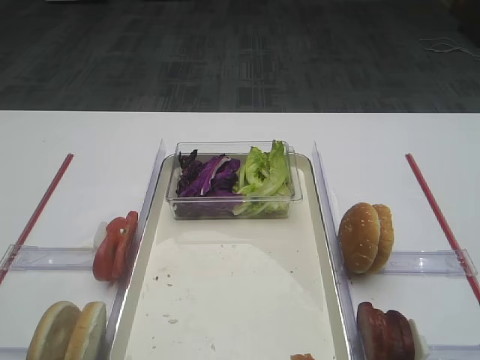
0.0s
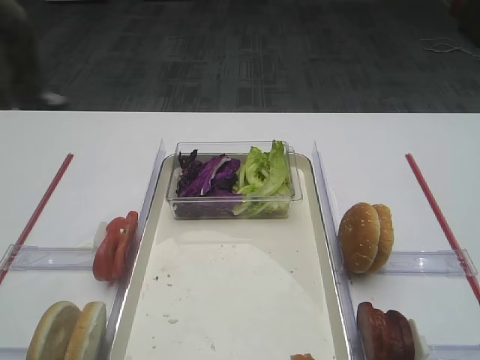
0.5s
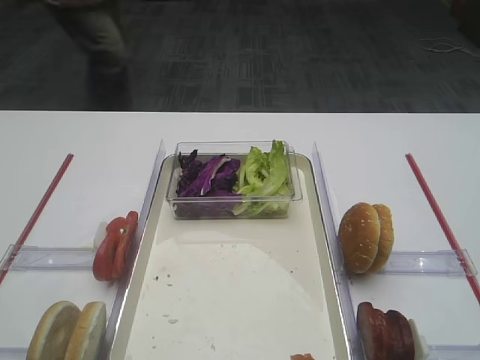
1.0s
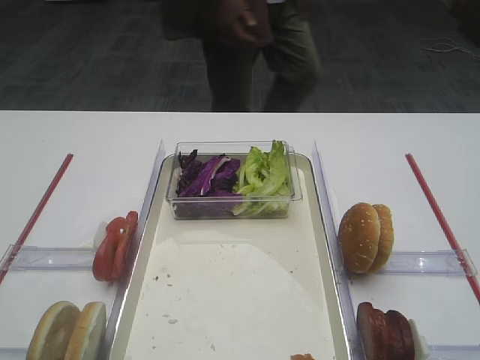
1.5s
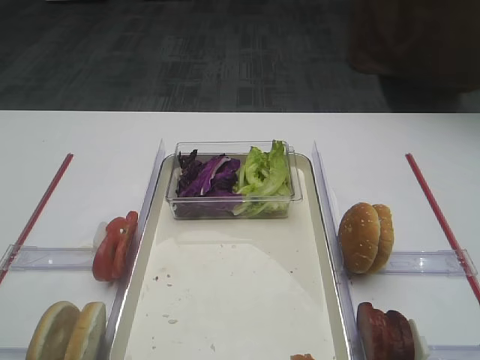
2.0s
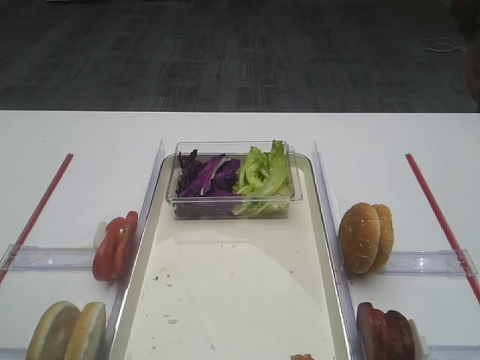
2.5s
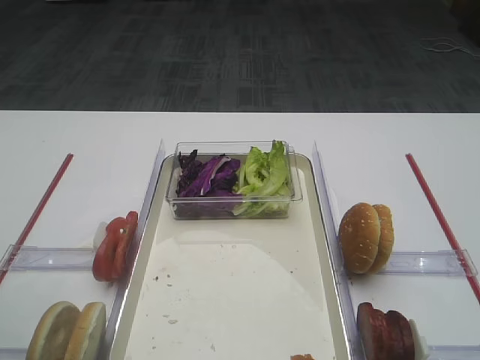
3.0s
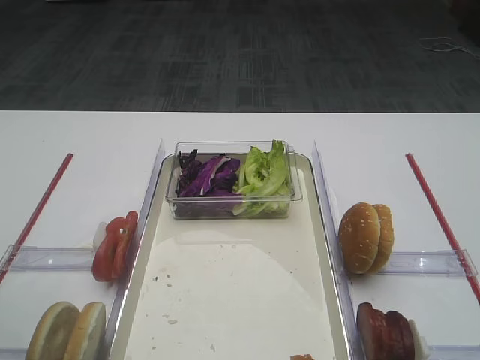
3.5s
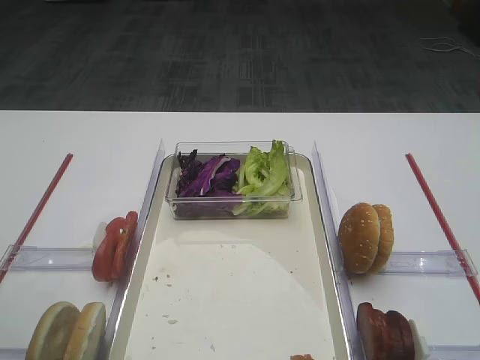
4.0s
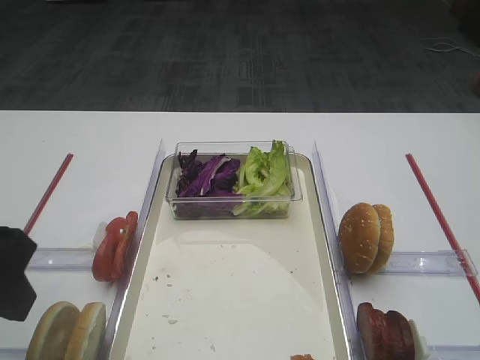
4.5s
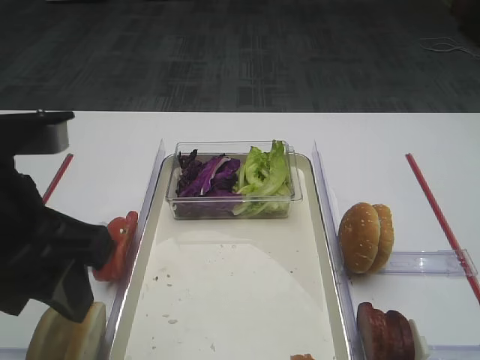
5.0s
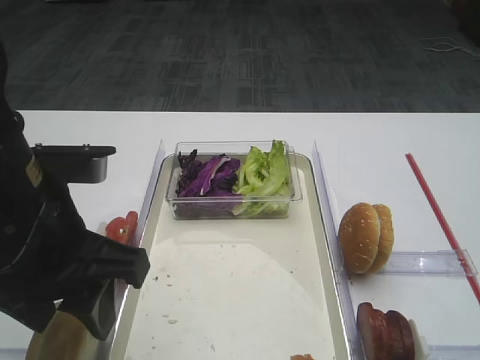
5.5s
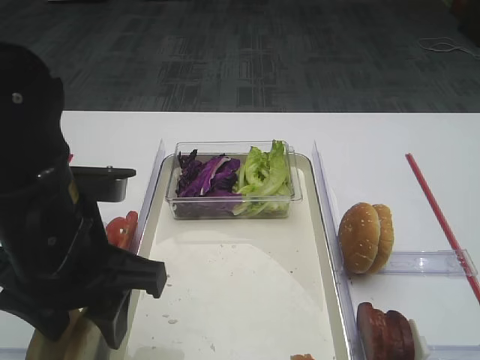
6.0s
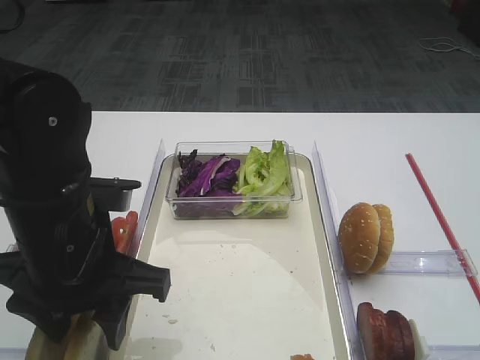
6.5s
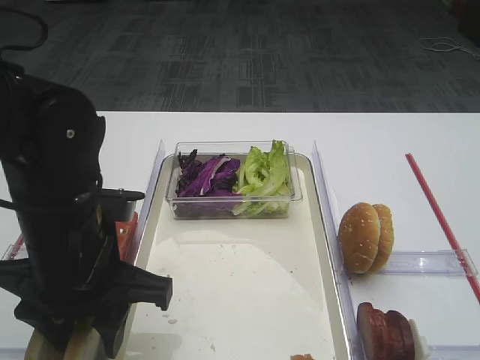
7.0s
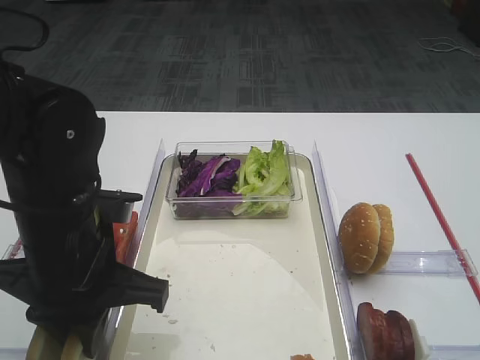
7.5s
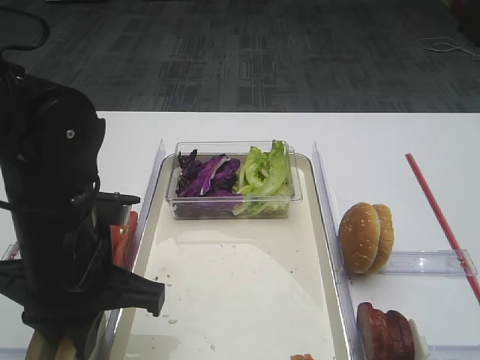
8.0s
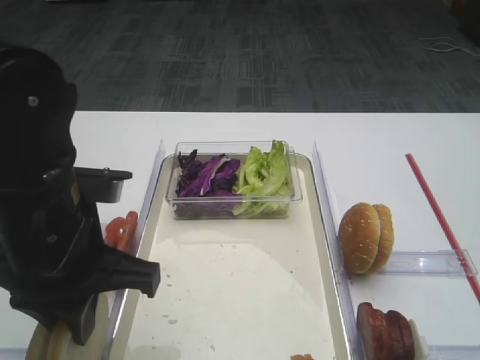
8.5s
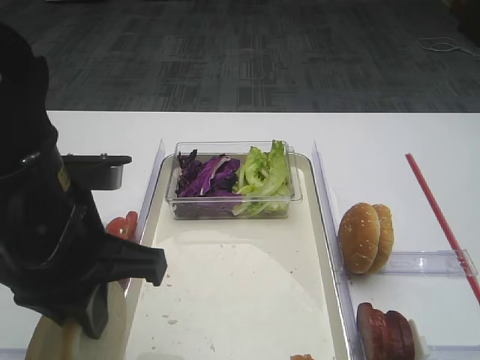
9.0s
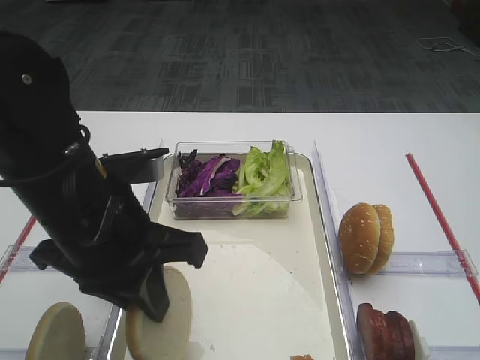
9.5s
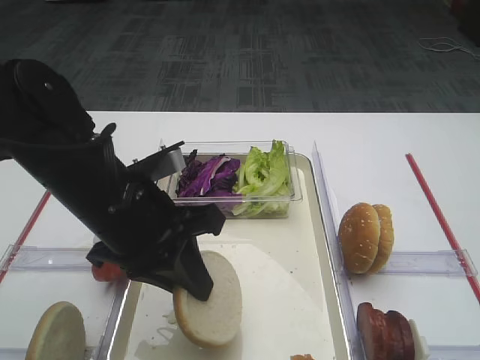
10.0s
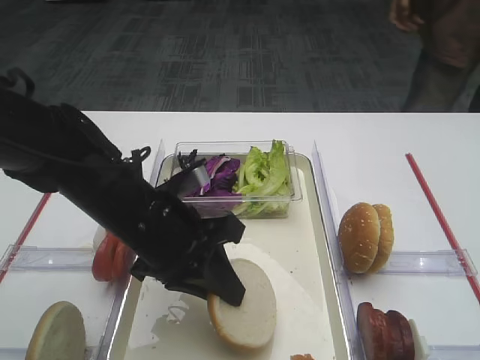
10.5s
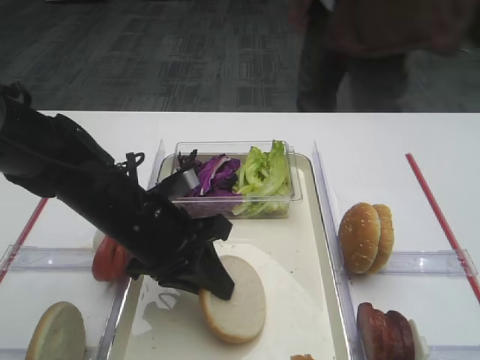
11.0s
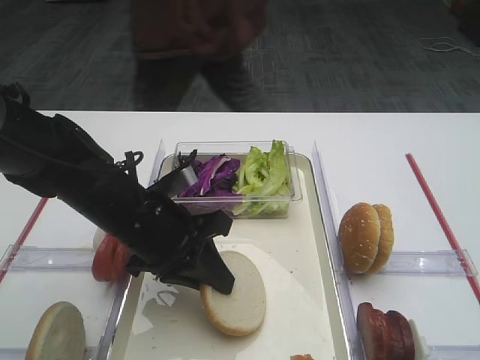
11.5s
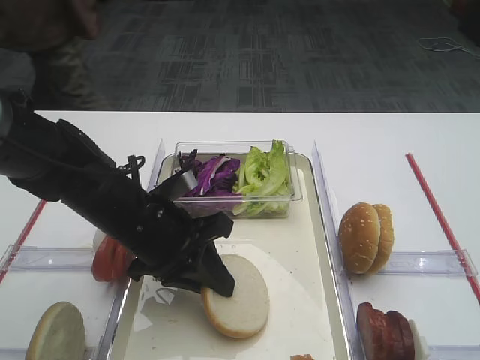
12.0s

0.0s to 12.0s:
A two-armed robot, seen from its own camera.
Step, 0.0s to 8.5s: Pick up the bread slice with the left gripper.
4.0s to 6.0s: The left gripper heads to the right, downward and forward, covering about 15 cm.
6.0s to 8.0s: The left gripper closes.
10.0s to 12.0s: The left gripper moves downward, roughly 5 cm.

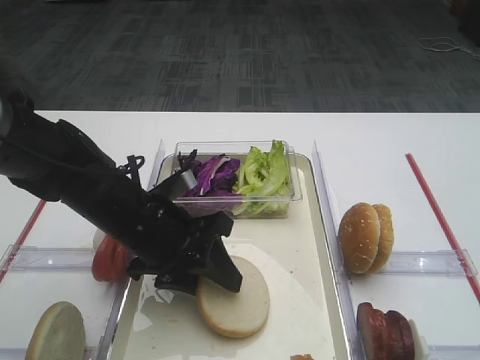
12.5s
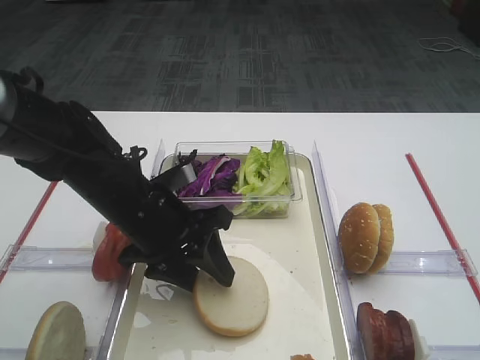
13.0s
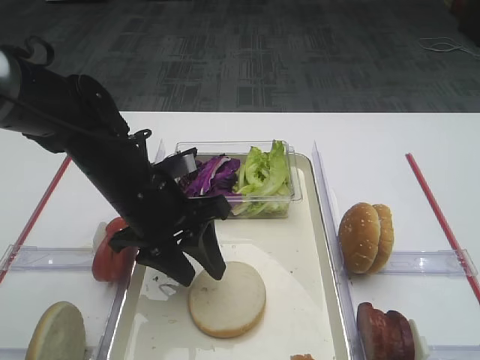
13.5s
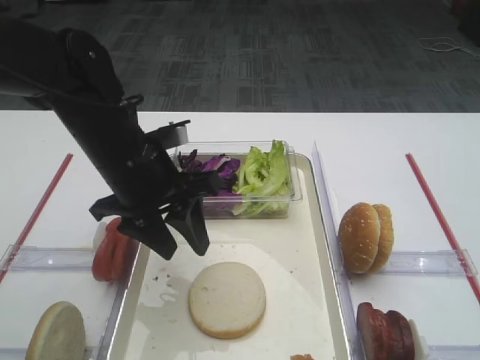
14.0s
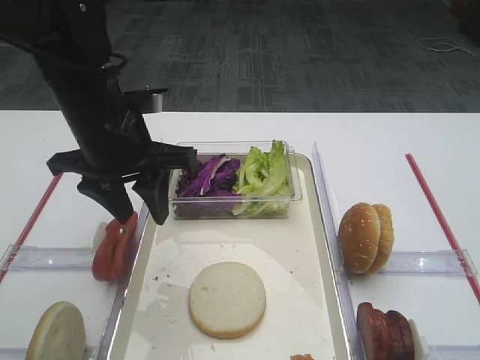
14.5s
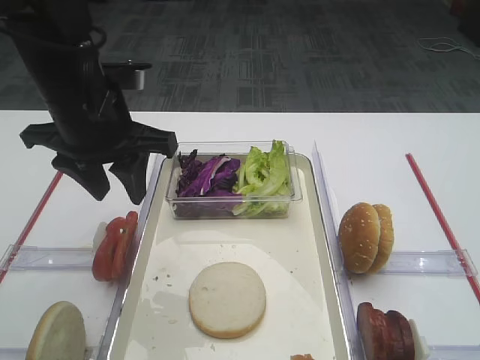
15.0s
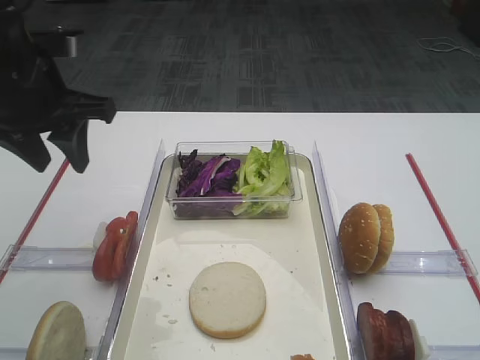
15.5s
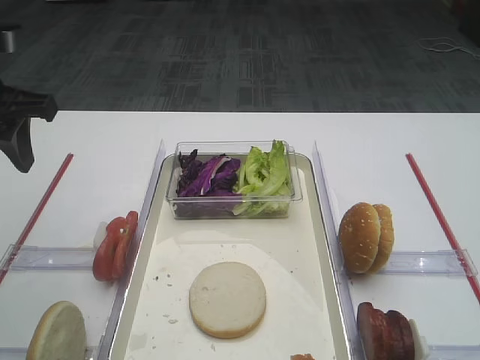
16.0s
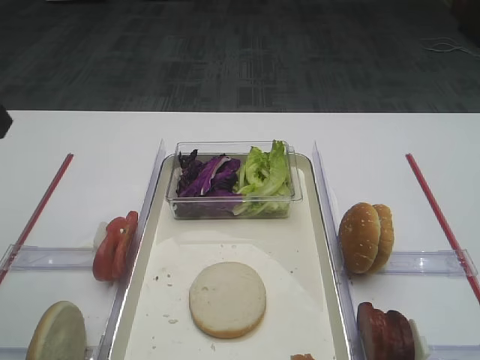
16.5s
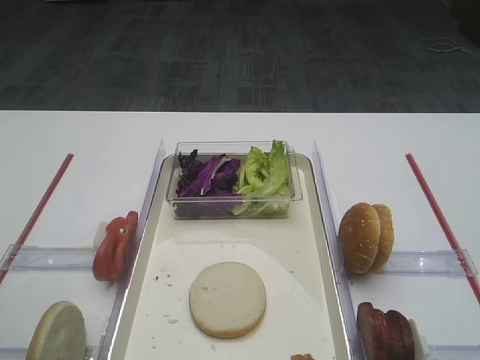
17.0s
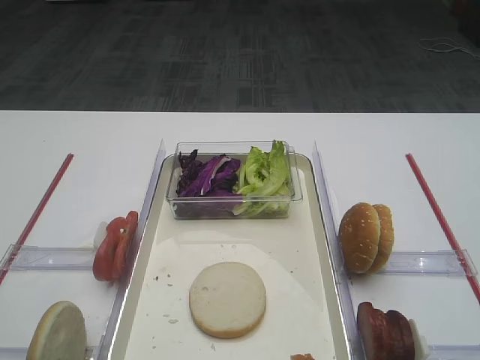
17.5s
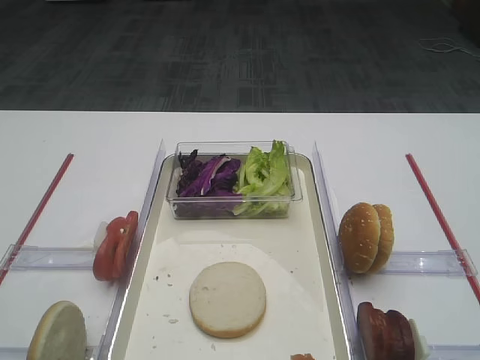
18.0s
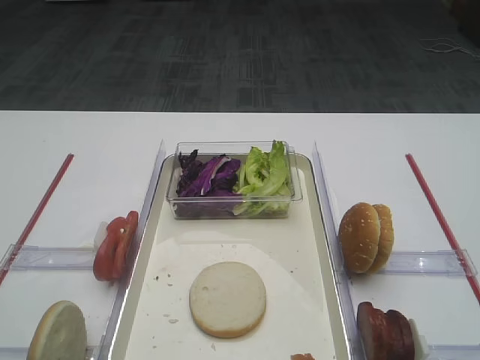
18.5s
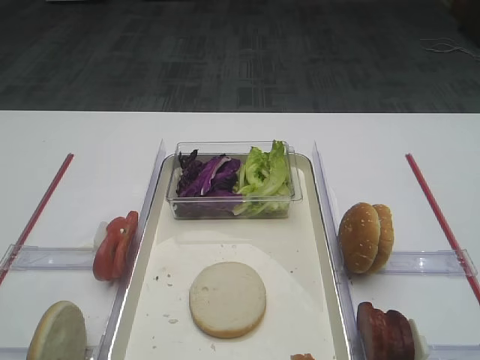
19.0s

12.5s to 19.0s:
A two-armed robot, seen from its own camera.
12.5s to 14.5s: The left gripper is displaced upward by about 10 cm.
14.5s to 17.0s: The left gripper travels backward, to the left and upward by about 25 cm.

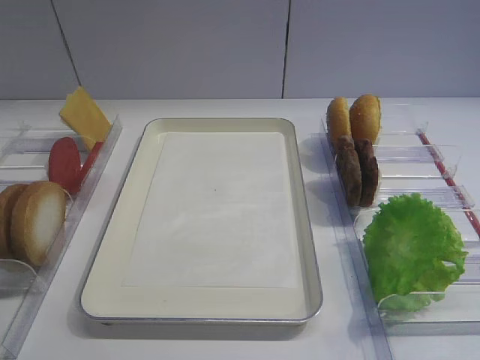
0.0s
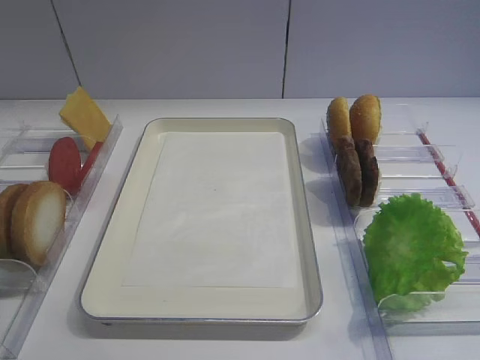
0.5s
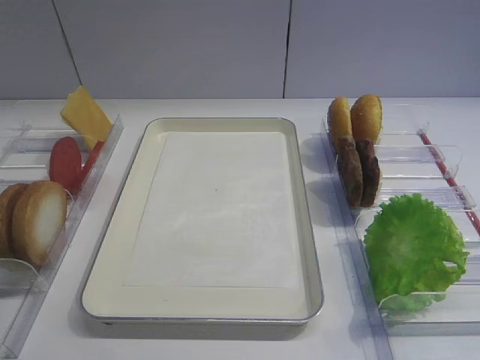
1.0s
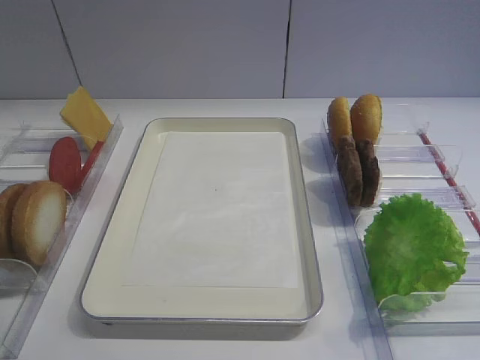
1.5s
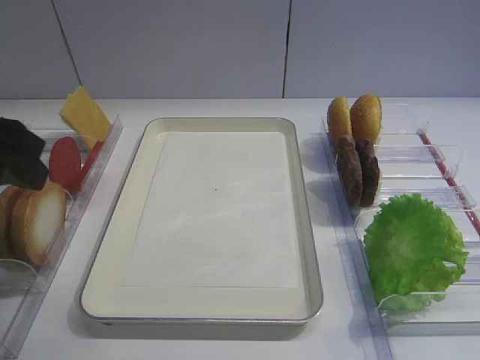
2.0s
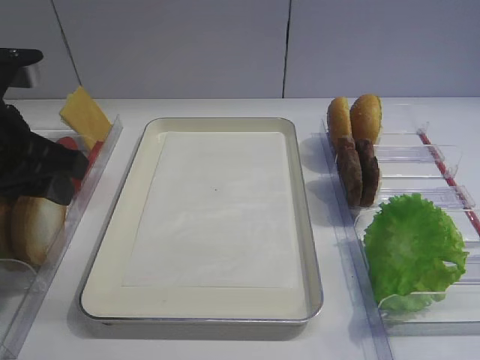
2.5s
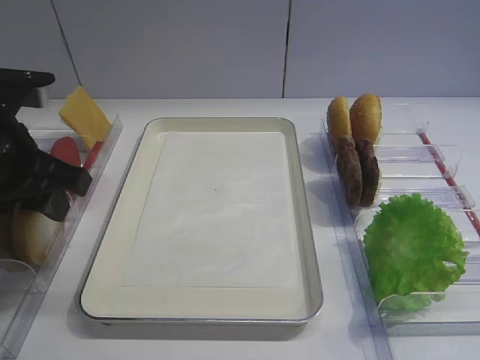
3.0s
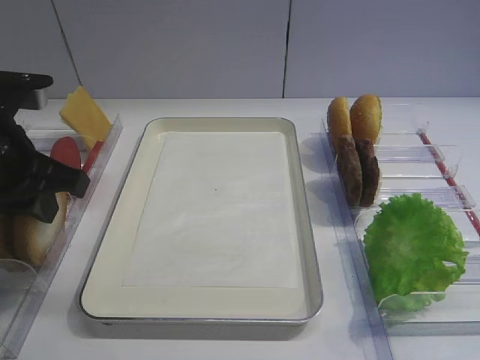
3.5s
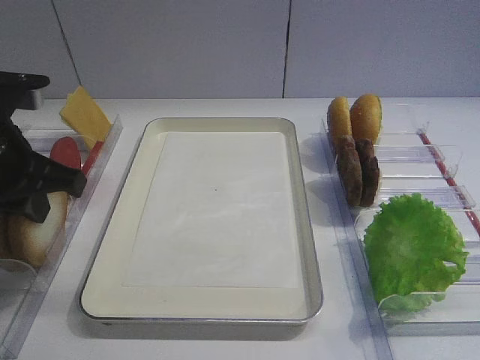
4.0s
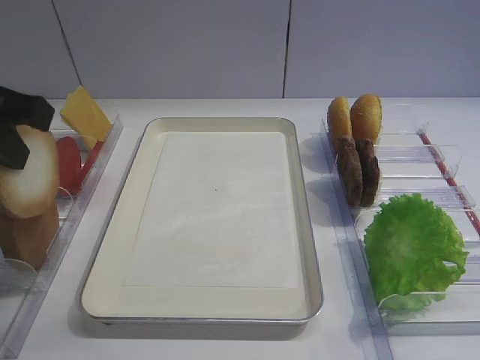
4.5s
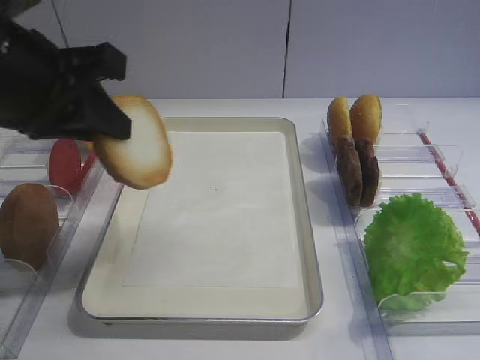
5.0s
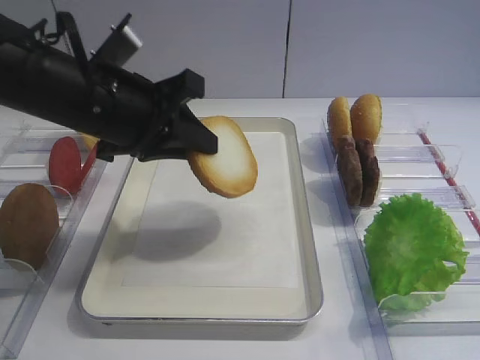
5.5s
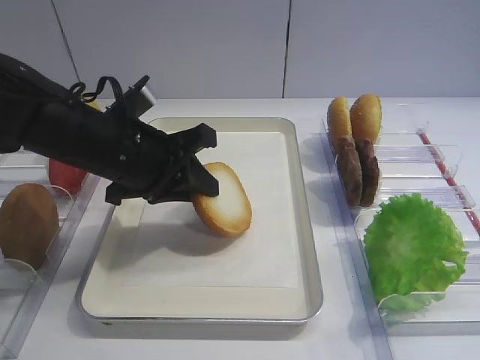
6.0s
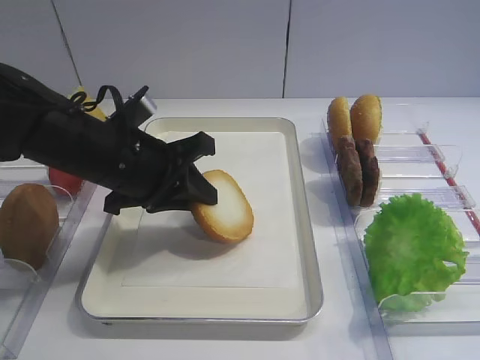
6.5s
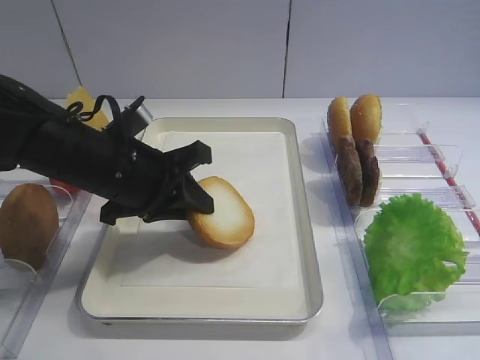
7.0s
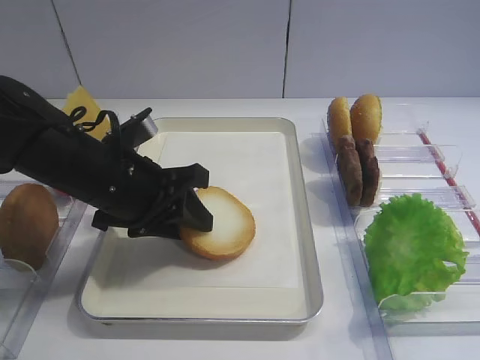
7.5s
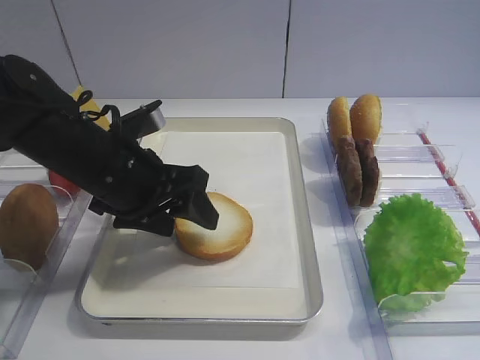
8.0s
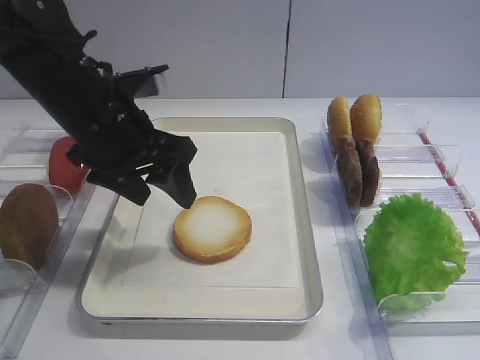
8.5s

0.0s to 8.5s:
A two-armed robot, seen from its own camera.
Step, 0.0s to 4.0s: Pick up the bread slice with the left gripper.
Step, 4.5s to 7.5s: Place the bread slice on the tray with the left gripper.
2.0s to 4.0s: The left gripper travels downward by about 5 cm, and closes its fingers.
4.0s to 6.5s: The left gripper moves to the right and downward, approximately 10 cm.
6.5s to 8.5s: The left gripper opens.
